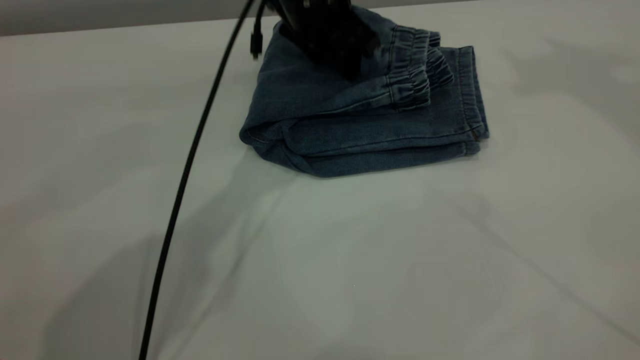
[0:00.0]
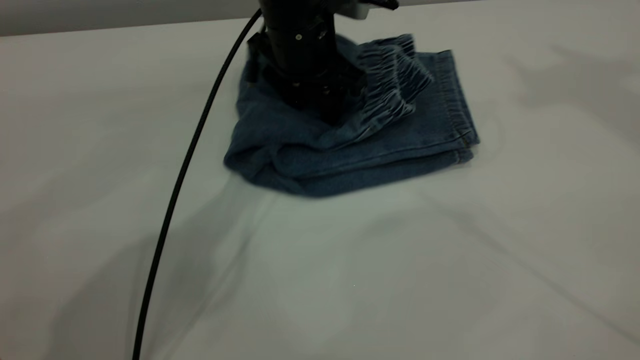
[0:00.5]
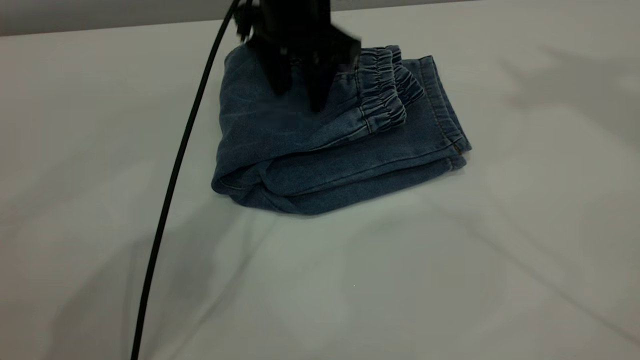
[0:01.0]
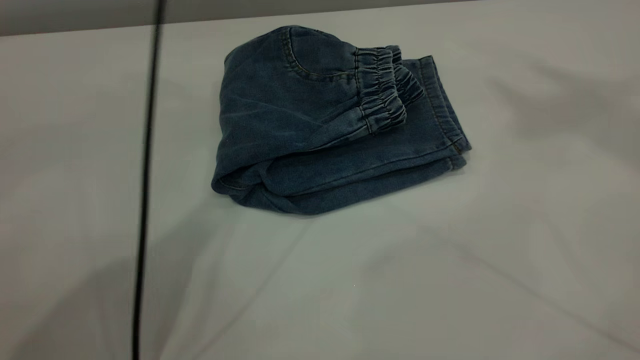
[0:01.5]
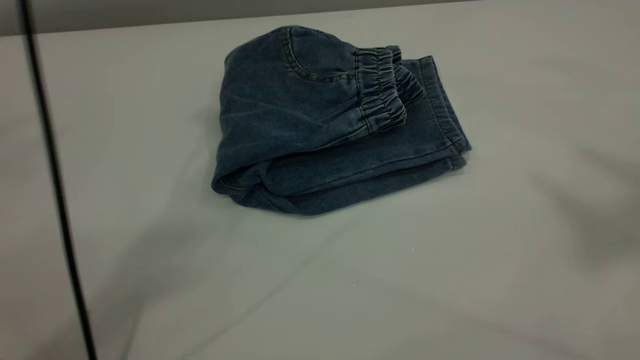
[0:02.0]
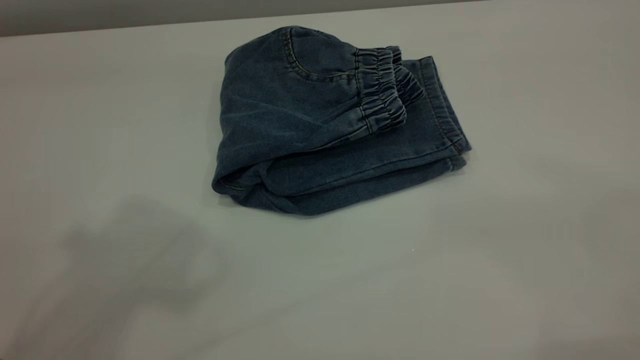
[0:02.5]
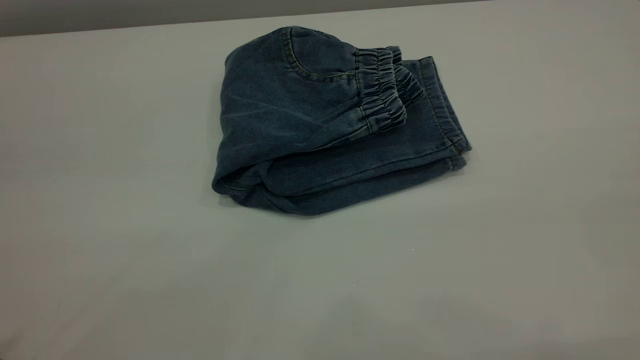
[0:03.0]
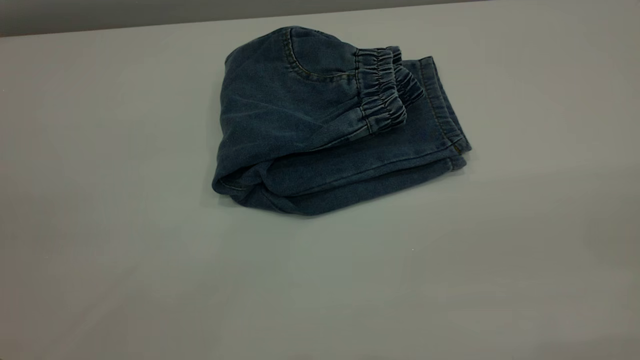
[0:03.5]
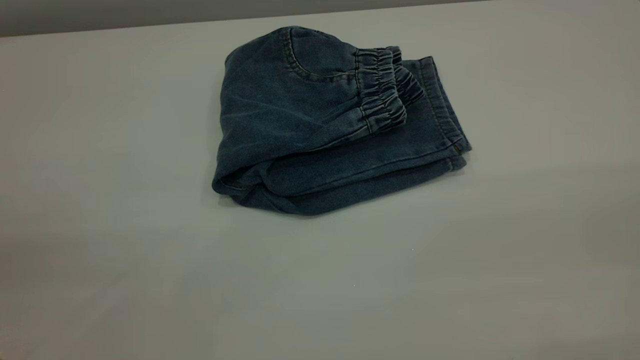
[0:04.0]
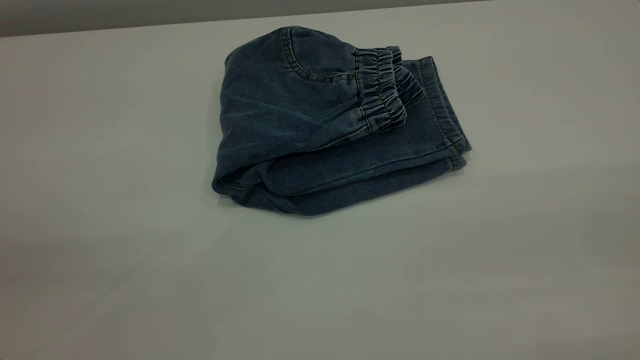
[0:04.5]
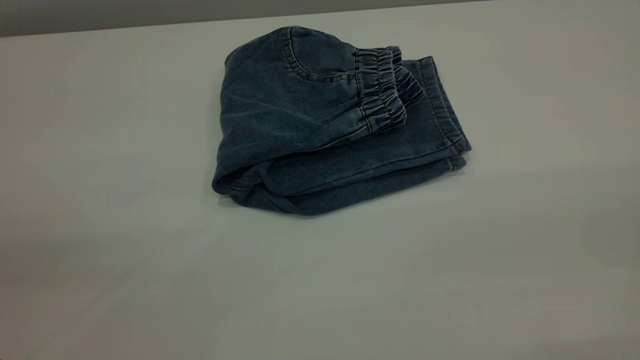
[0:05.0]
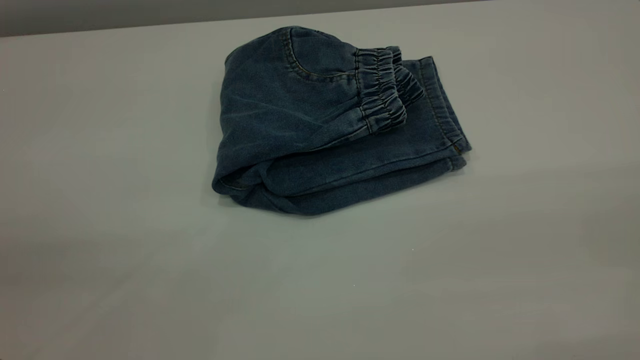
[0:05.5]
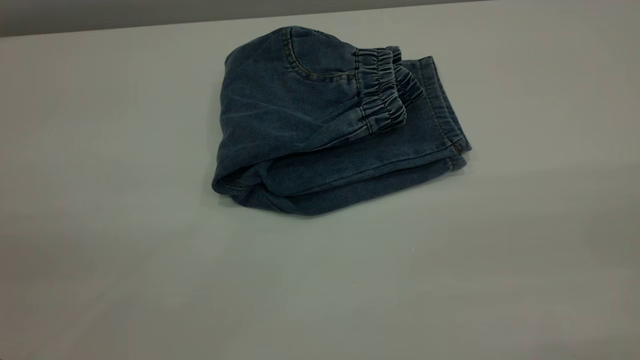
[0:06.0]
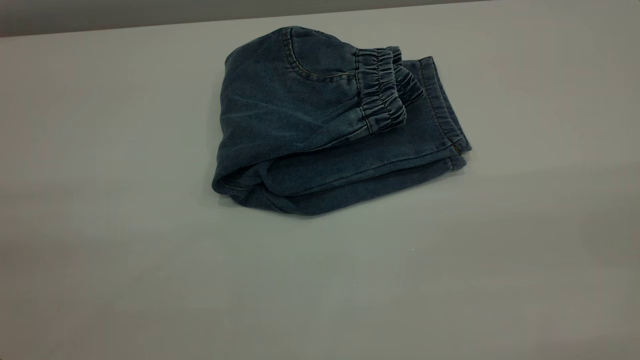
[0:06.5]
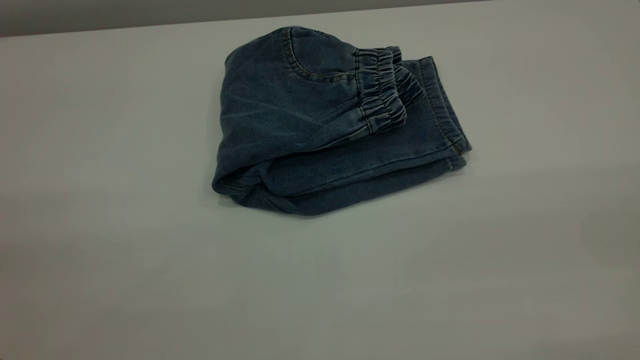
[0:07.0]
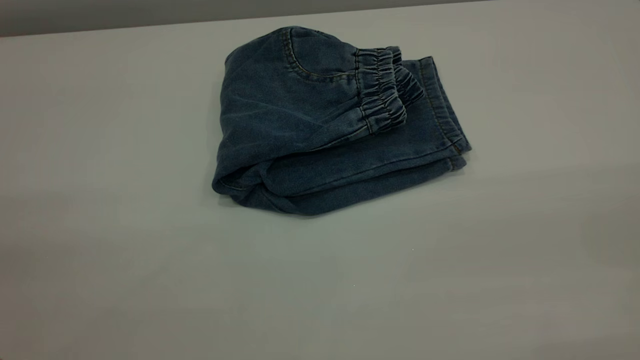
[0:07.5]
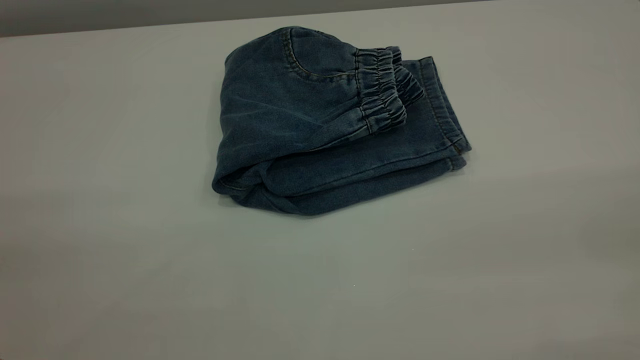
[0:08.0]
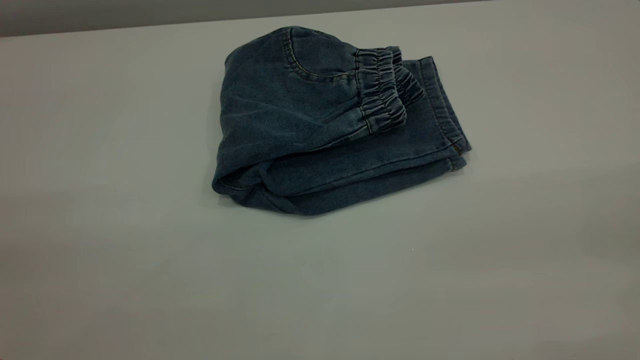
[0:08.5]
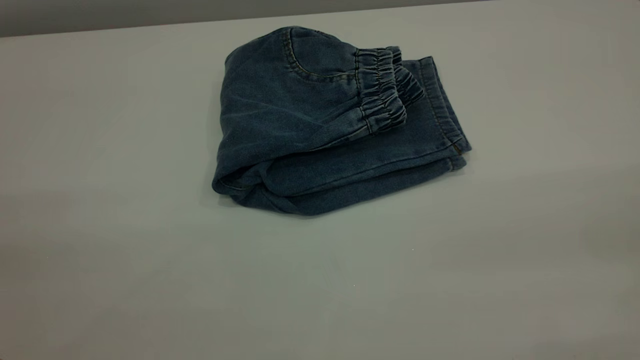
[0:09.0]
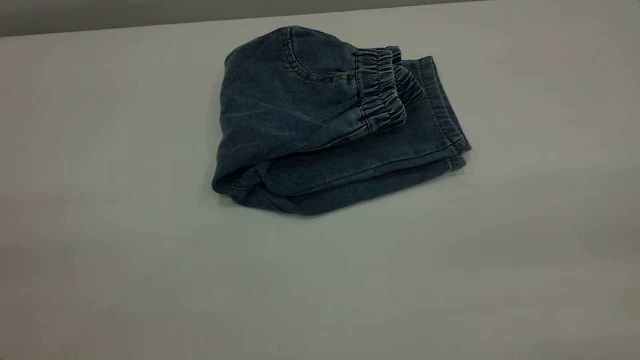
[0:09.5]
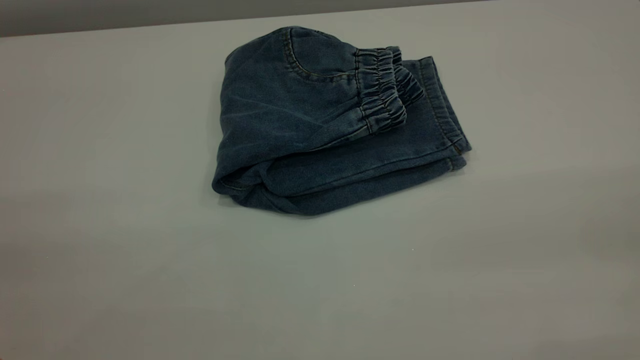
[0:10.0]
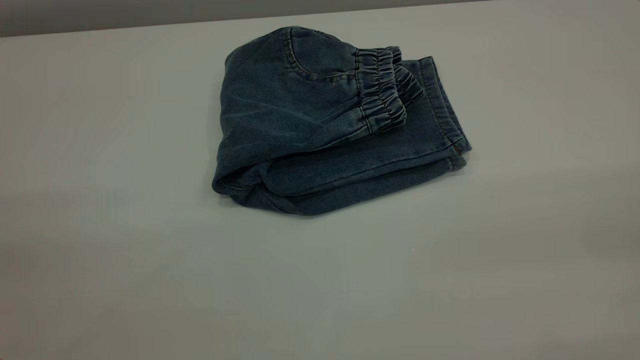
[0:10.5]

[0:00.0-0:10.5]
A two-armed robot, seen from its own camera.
0:00.0 to 0:02.0: The right gripper moves backward, some 20 cm. The left gripper goes approximately 30 cm upward.
0:02.0 to 0:04.0: The left gripper heads backward and to the left, covering roughly 35 cm.
0:08.5 to 0:10.5: The two grippers keep their place.
